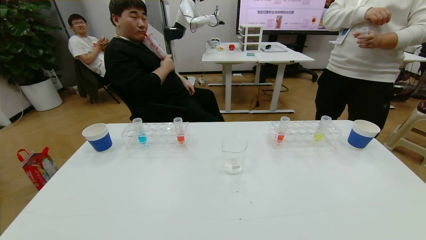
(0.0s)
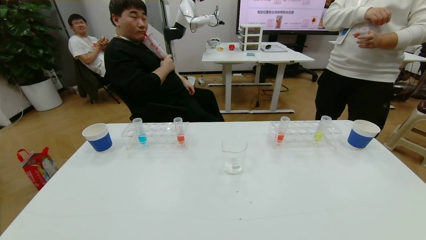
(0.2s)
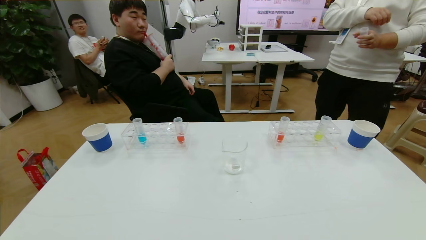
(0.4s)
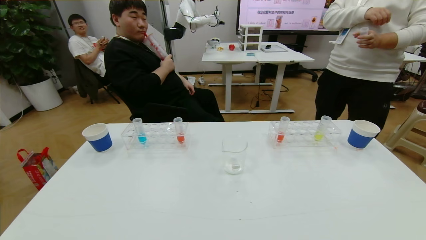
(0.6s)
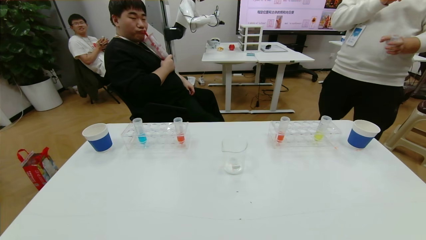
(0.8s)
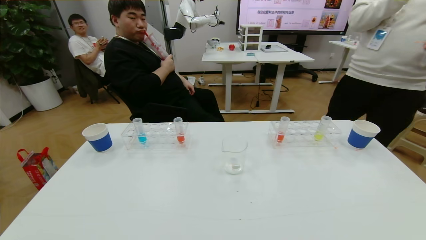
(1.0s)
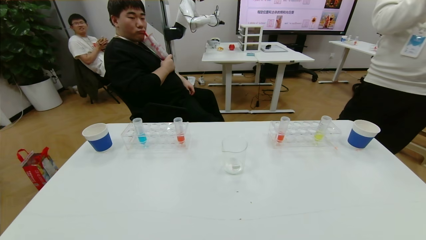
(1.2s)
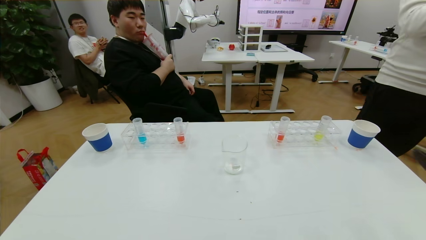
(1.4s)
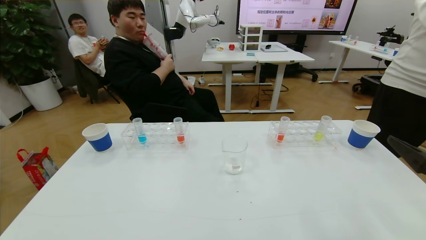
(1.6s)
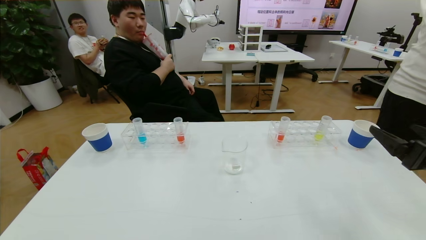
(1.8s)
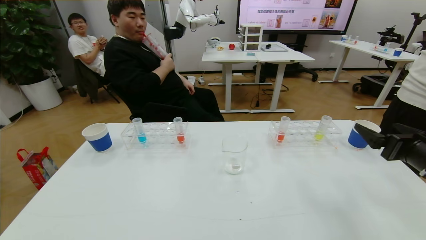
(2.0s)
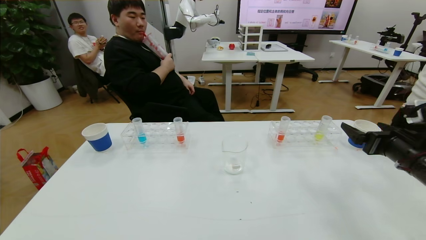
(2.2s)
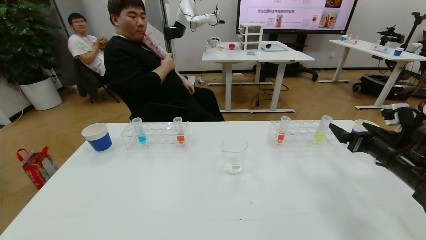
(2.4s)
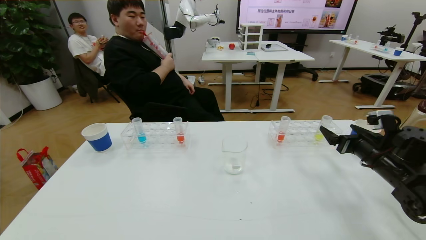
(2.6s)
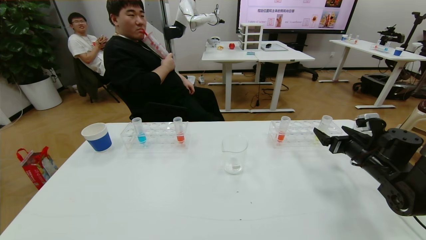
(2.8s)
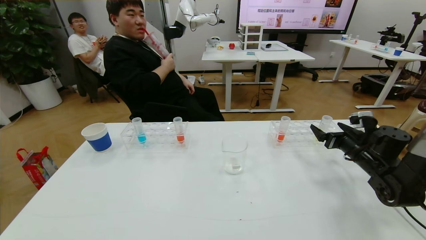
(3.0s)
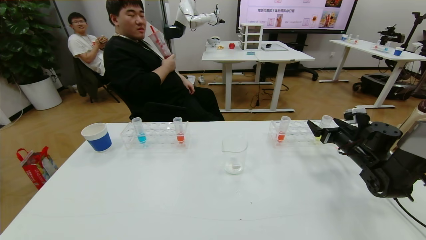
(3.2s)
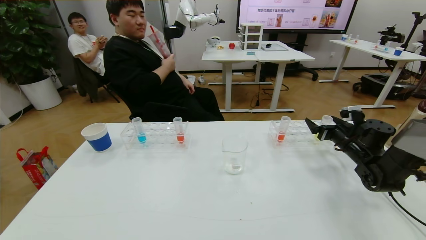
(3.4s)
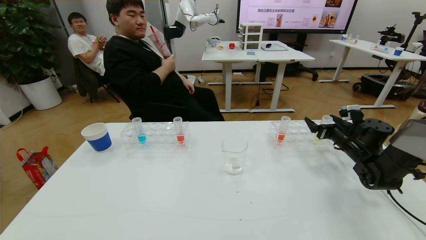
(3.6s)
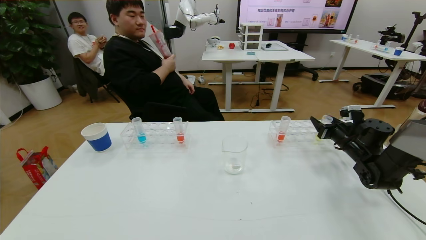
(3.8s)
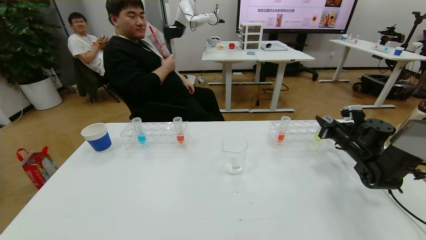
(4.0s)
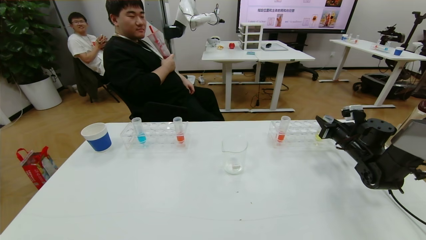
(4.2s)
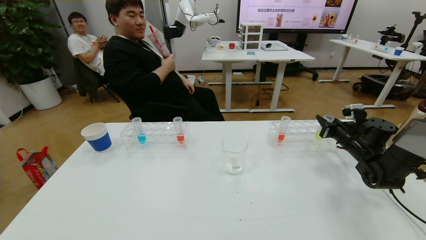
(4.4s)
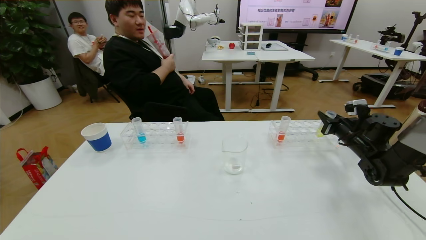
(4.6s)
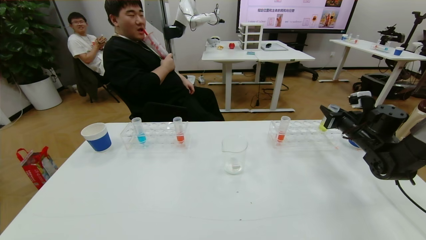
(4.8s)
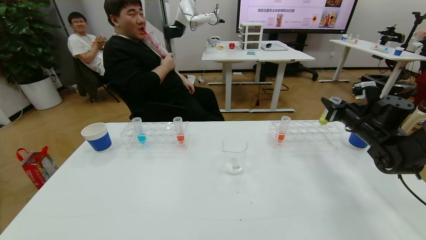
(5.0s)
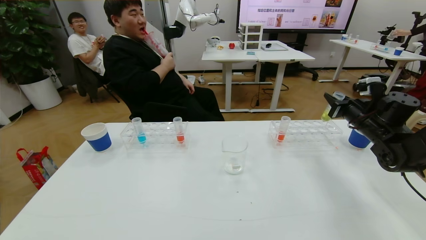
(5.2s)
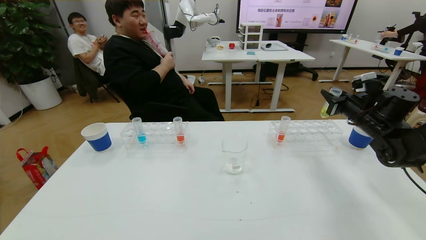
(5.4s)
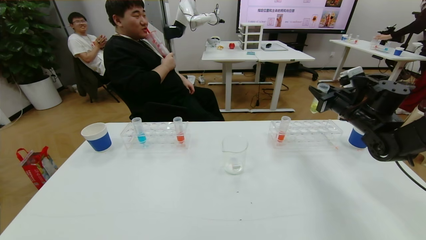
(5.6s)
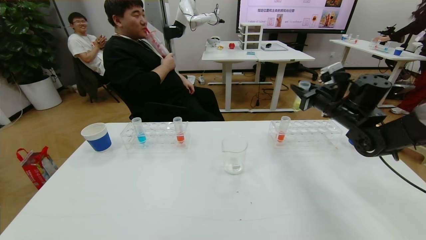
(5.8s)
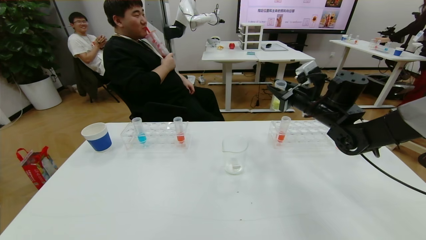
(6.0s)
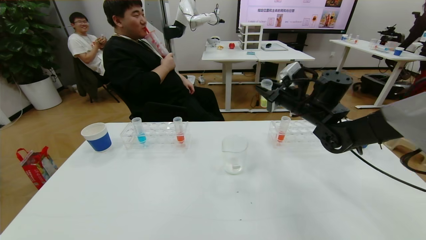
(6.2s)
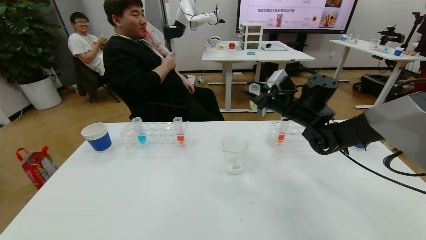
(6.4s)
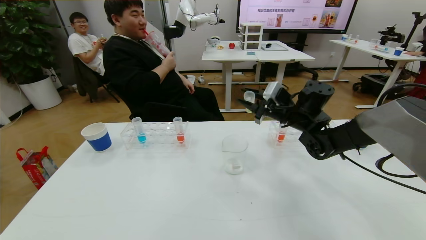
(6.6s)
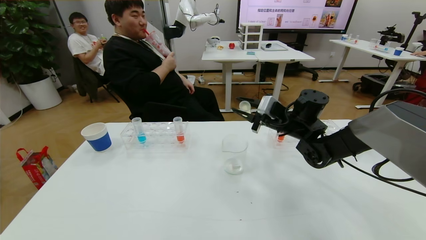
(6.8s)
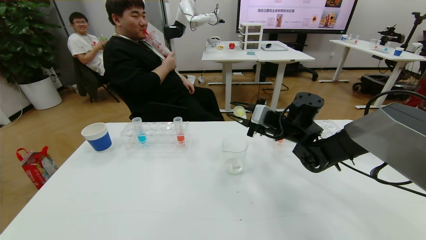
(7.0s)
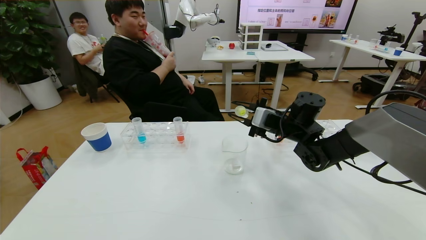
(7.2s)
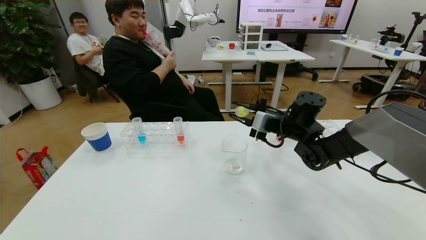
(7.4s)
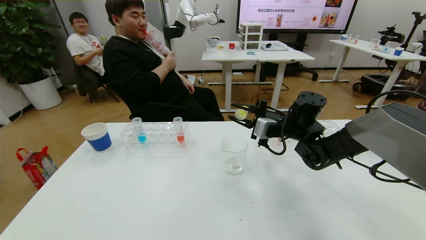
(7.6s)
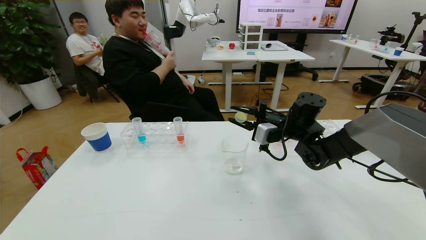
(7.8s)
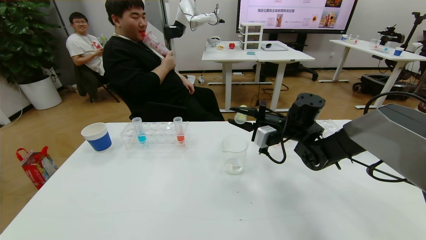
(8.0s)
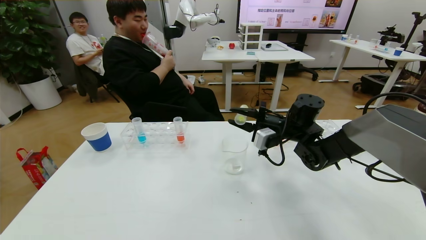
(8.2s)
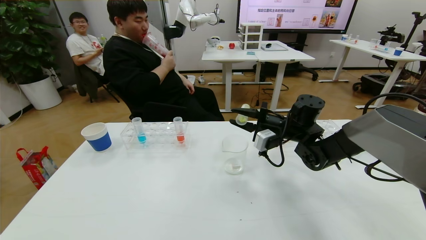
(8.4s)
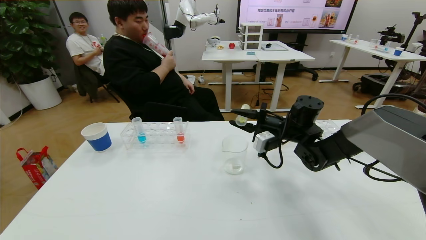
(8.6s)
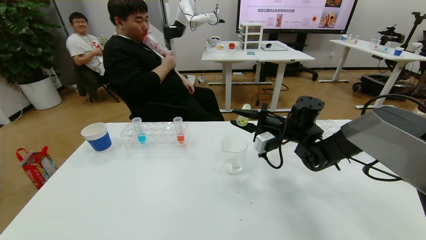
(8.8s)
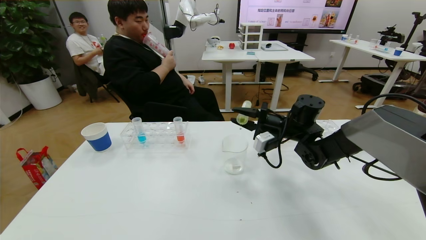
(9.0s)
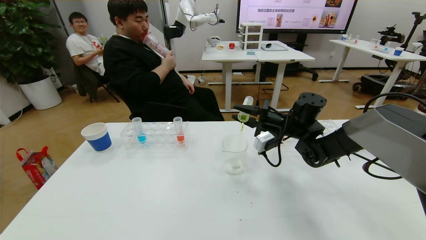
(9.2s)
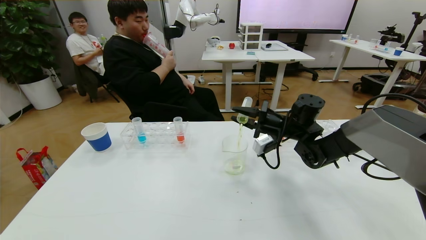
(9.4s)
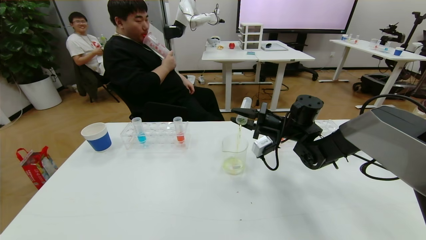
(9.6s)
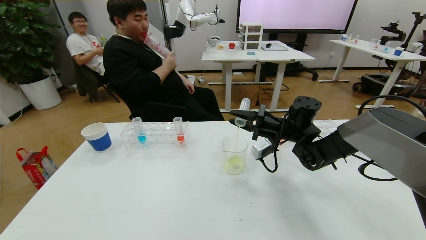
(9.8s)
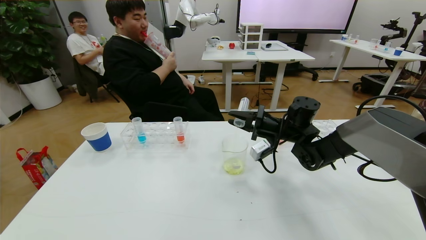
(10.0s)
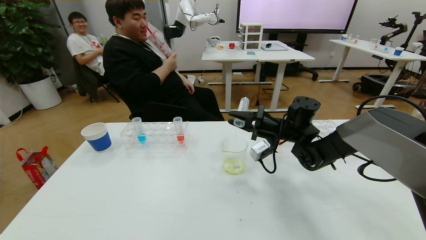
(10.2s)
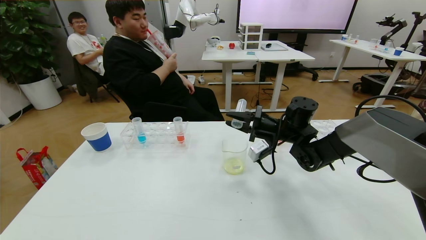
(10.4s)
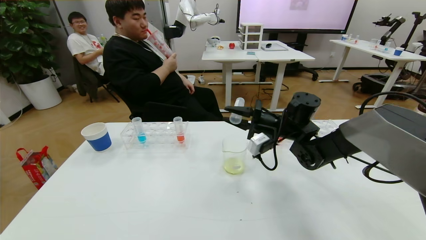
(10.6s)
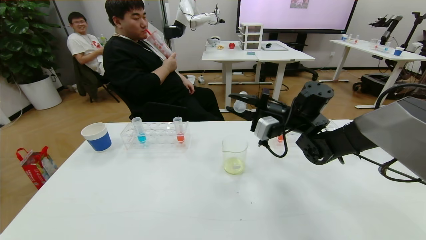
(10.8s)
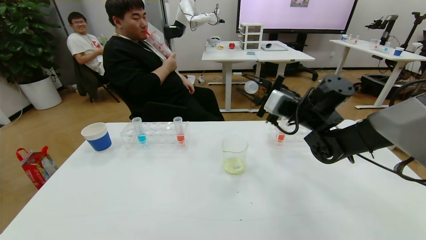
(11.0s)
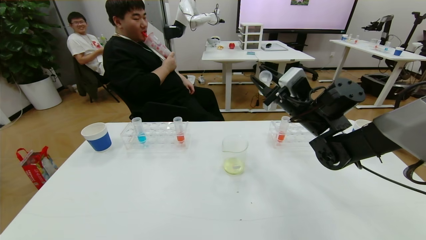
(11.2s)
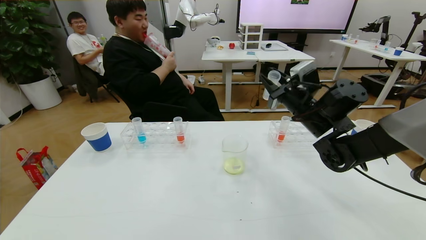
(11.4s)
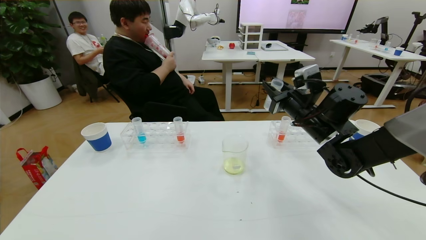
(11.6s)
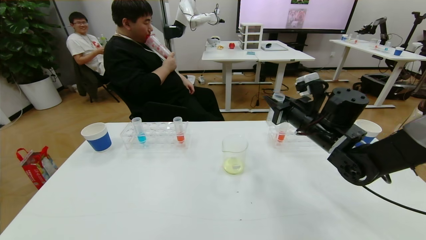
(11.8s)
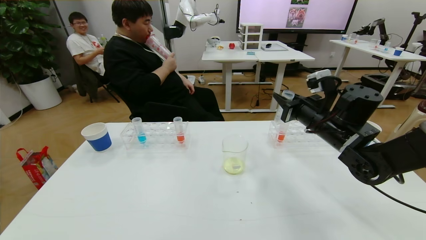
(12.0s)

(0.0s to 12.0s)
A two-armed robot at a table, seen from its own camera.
Task of the whole recording: pick up the test tube with yellow pigment and the test tube with blue pigment by grippers and pour them into the beaker.
0.0s - 1.6s: The right gripper heads forward and upward, covering roughly 20 cm.
1.6s - 3.0s: The right gripper travels forward and downward by roughly 25 cm.
3.0s - 4.4s: The right gripper closes its fingers.
4.4s - 6.0s: The right gripper travels to the left and upward by roughly 20 cm.
6.0s - 7.6s: The right gripper shifts approximately 10 cm to the left.
9.0s - 10.4s: The grippers make only small movements.
10.4s - 12.0s: The right gripper goes approximately 10 cm to the right, backward and upward.

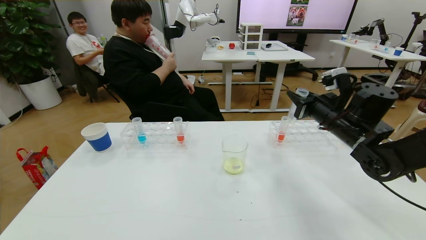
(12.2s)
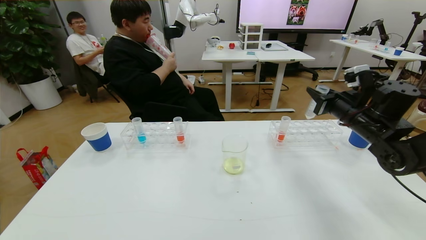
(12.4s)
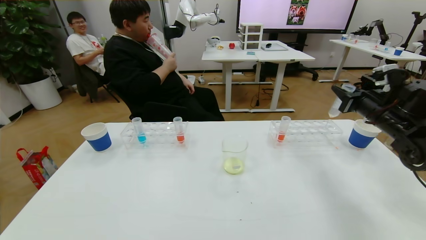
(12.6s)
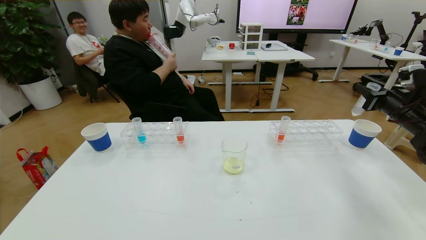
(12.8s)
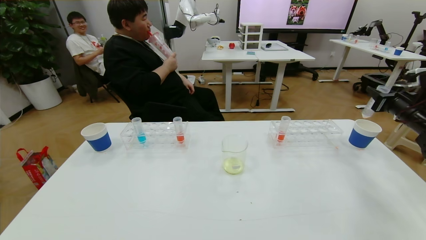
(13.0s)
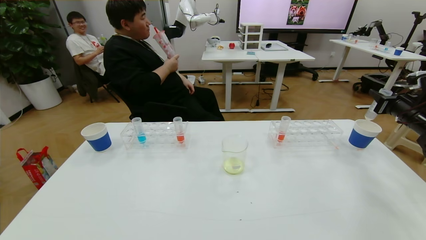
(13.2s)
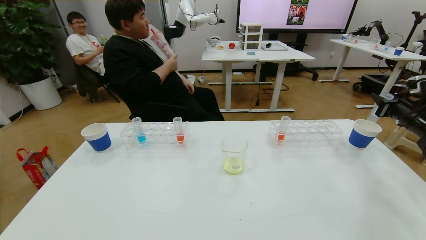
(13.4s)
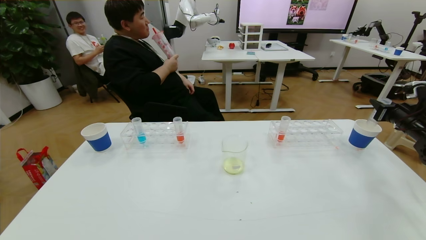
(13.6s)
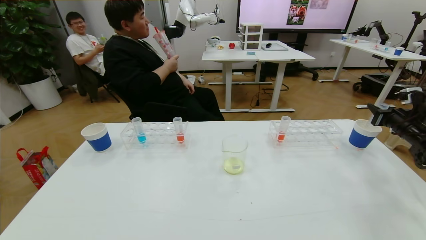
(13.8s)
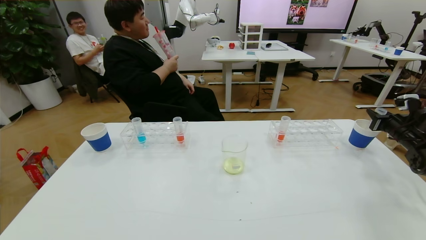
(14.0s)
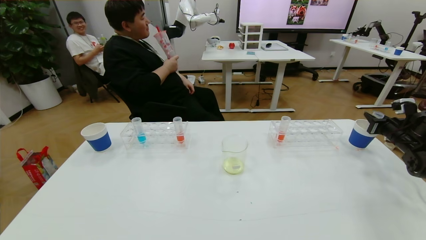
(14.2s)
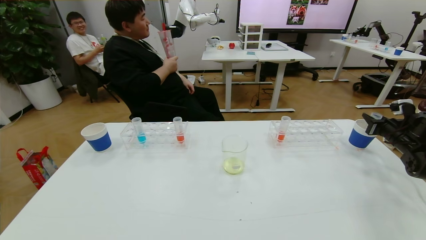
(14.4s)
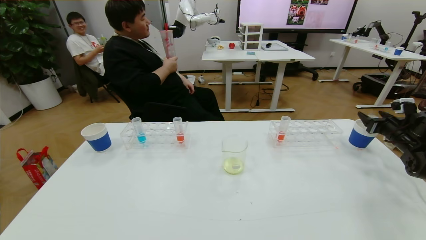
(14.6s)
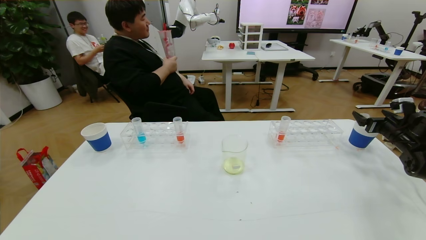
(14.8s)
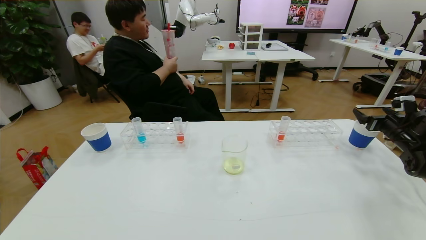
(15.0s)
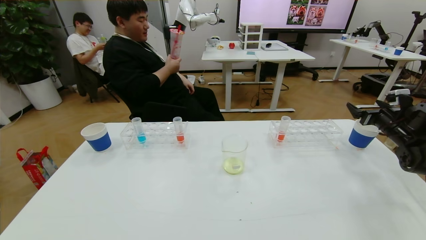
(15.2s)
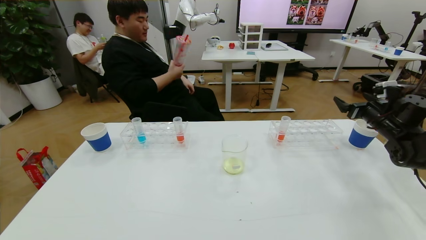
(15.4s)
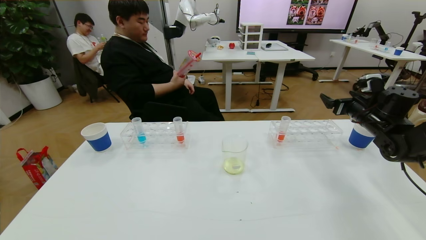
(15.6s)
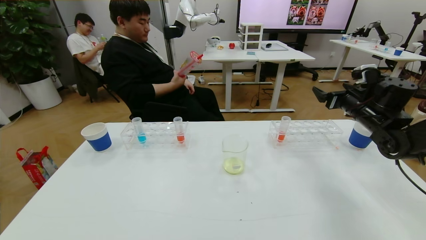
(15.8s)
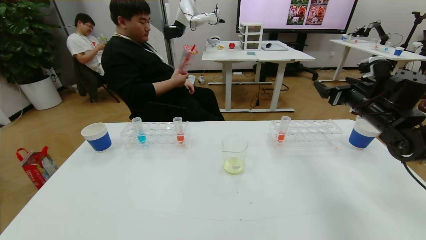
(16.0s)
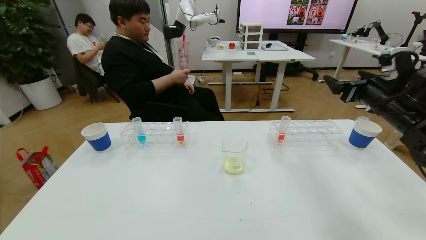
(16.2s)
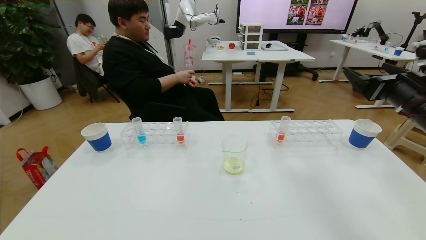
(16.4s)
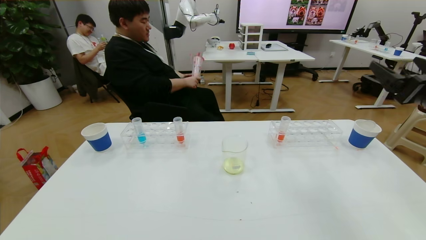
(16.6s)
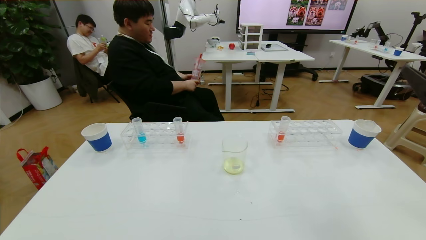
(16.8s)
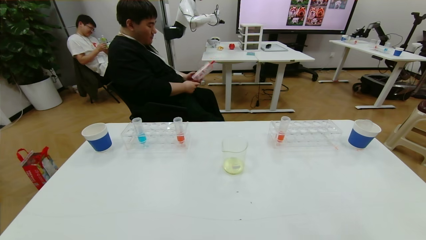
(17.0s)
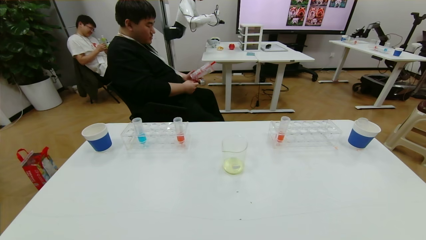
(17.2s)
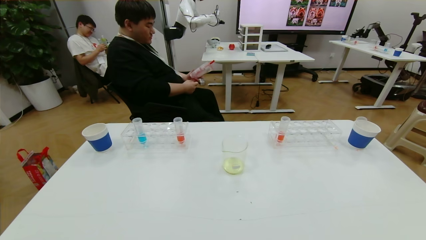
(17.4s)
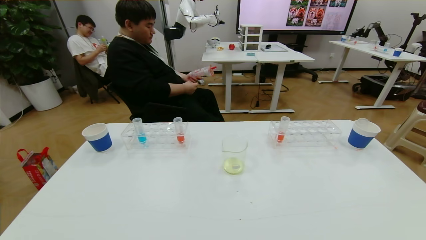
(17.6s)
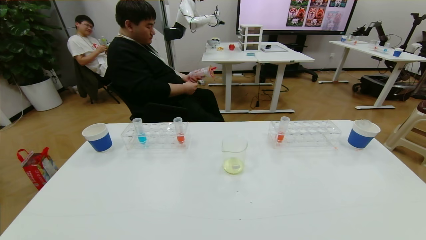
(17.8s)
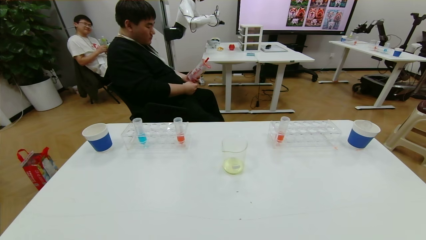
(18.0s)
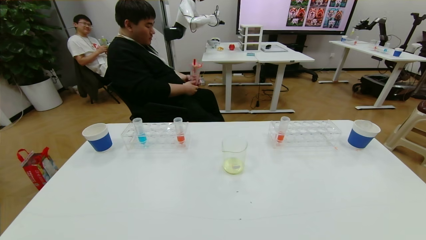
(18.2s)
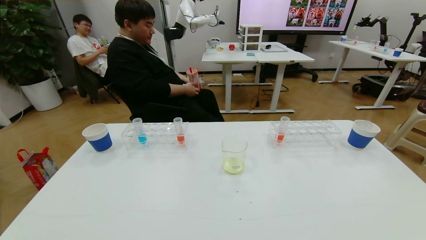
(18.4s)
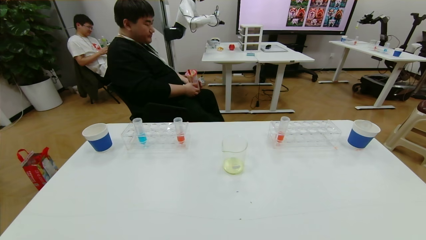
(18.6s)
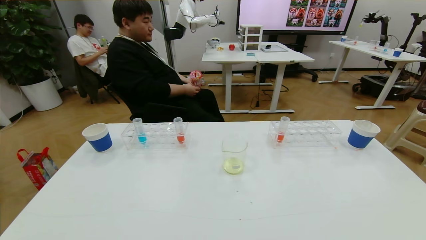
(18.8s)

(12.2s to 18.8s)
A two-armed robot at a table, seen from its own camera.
Task of the whole recording: pick up the test tube with yellow pigment and the test tube with blue pigment by grippers and pour them into the beaker.
Step, 12.2s - 18.4s: Pour the yellow reagent into the graduated cylinder and place the test tube into the paper cup.
12.2s - 13.8s: The right gripper heads to the right, covering some 25 cm.
13.8s - 15.4s: The right gripper moves to the left, about 5 cm, and opens its fingers.
15.4s - 17.2s: The right gripper shifts roughly 35 cm backward.
17.2s - 18.8s: The right gripper heads downward and backward, covering approximately 20 cm.
